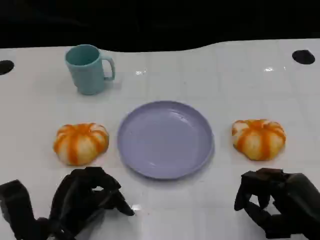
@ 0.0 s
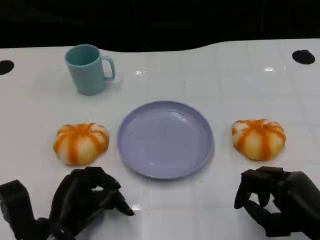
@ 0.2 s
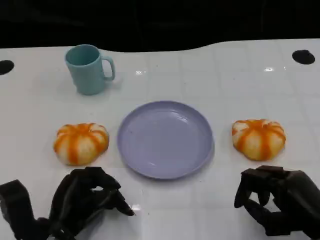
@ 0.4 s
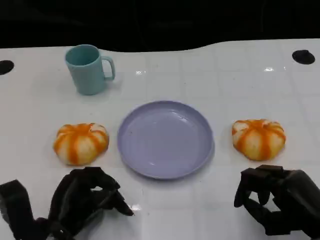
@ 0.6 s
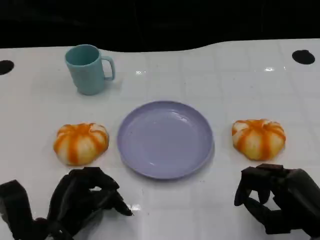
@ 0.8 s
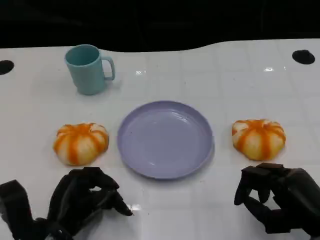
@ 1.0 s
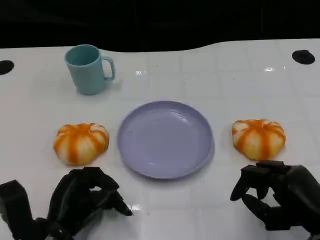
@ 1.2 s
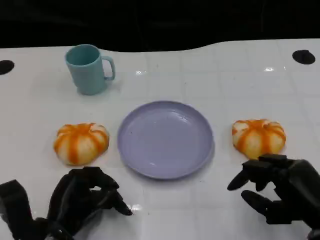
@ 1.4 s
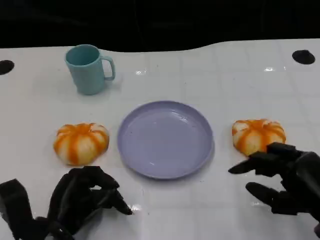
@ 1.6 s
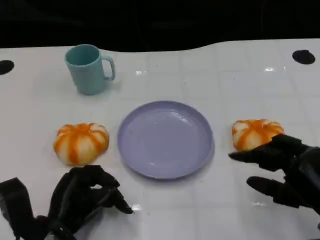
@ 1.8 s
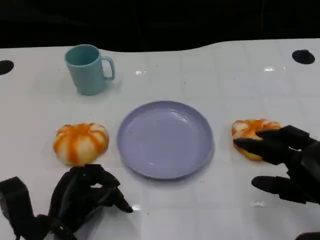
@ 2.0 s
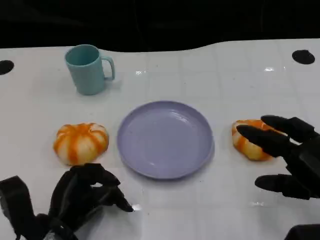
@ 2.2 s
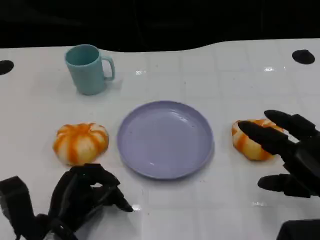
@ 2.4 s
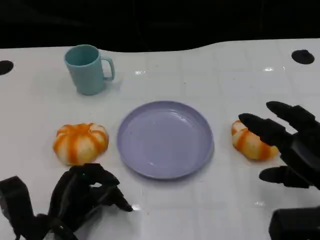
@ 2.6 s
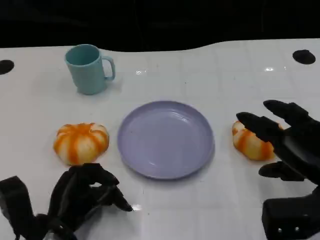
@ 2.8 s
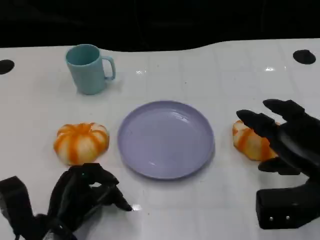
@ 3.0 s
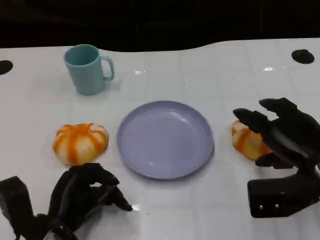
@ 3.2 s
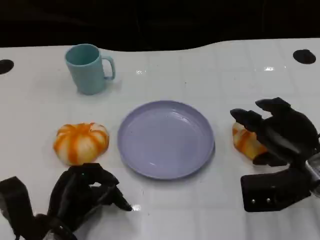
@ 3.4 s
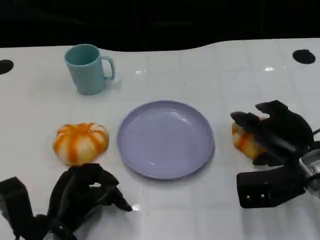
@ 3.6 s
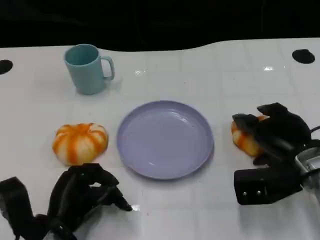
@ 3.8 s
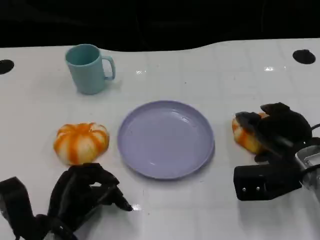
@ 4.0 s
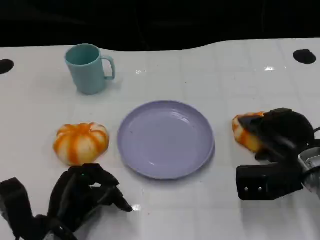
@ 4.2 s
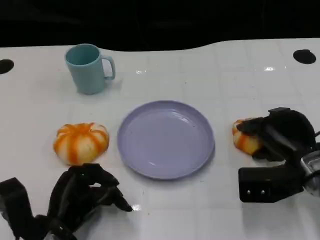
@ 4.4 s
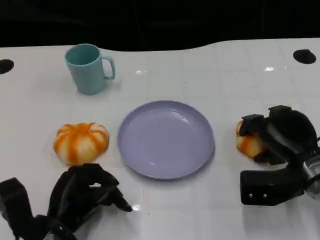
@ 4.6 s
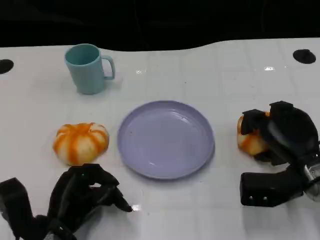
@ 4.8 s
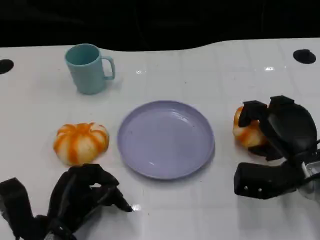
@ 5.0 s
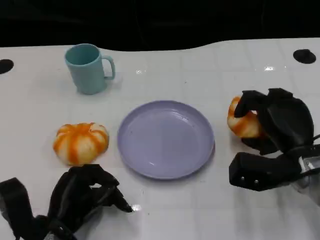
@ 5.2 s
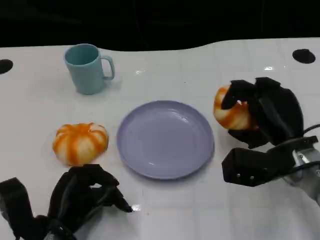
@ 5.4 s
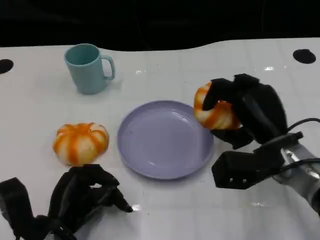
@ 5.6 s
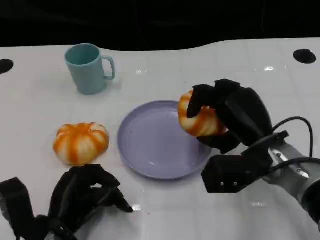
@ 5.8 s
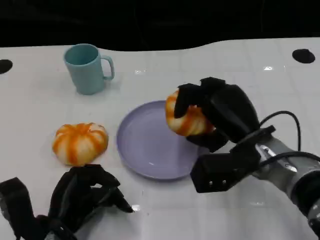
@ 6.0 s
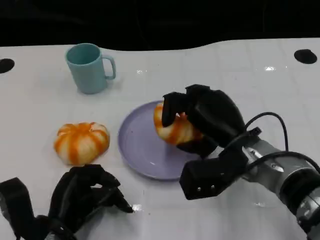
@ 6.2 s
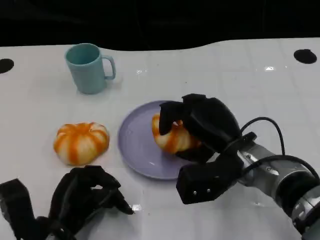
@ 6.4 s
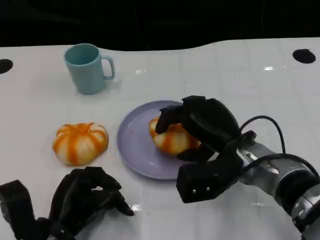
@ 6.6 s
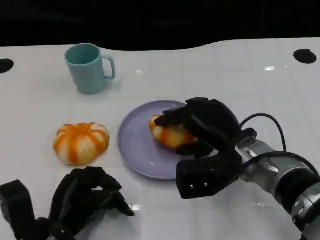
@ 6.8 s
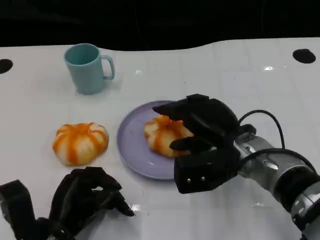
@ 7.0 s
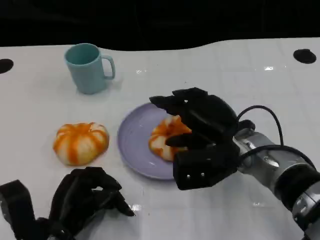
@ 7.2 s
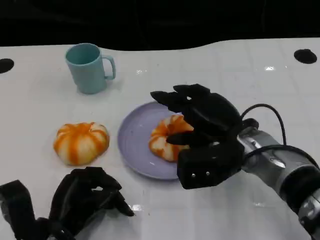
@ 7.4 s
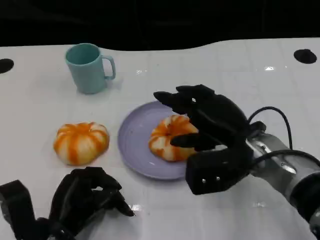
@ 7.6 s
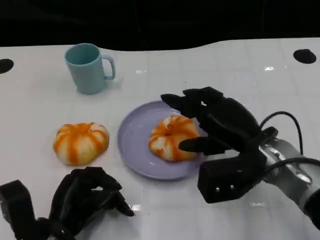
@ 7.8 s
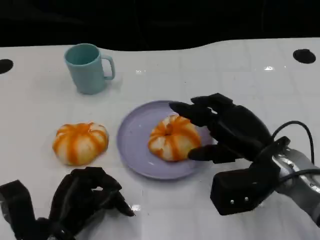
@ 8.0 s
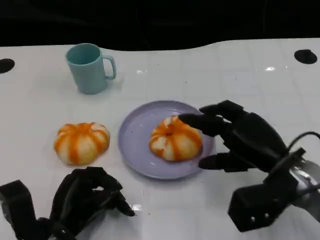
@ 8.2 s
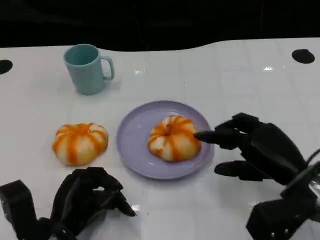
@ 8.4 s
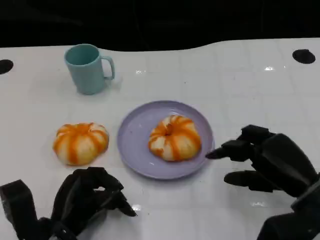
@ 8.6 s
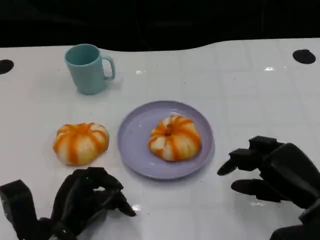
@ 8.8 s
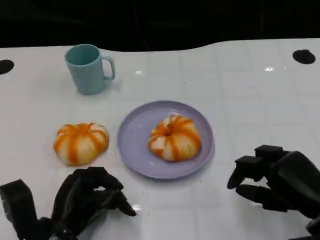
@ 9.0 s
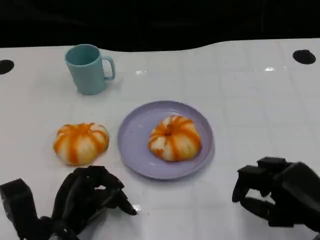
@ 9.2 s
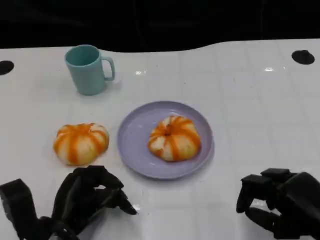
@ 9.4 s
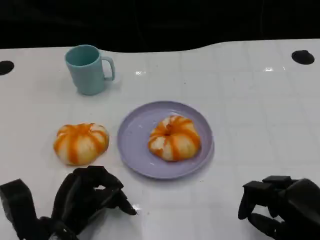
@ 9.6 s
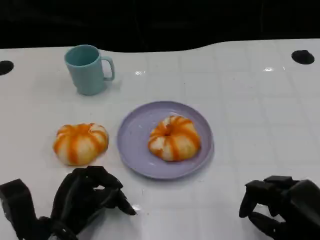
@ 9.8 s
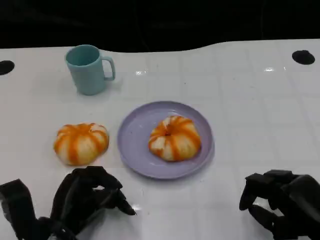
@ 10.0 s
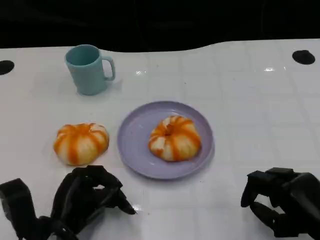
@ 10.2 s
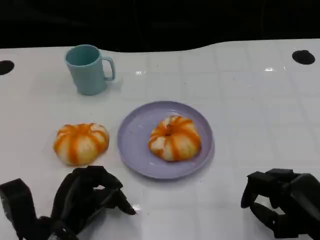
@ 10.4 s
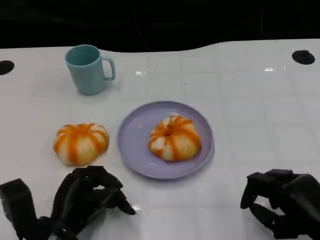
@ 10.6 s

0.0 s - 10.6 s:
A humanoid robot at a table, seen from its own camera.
Task of the whole recording: Grasp the bread from the table and place it into the plate.
0.0 s - 1.6 s: There are only small adjustments of the hands.
1.6 s - 3.0 s: The right hand goes approximately 5 cm forward.
3.0 s - 4.6 s: The right hand moves approximately 5 cm.
4.6 s - 6.0 s: The right hand travels to the left by about 10 cm.
7.6 s - 9.0 s: The right hand moves to the right and backward, approximately 15 cm.
9.0 s - 10.6 s: The hands stay close to where they were, moving slightly.

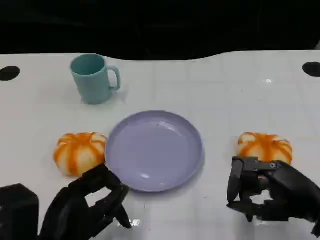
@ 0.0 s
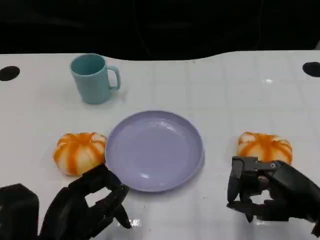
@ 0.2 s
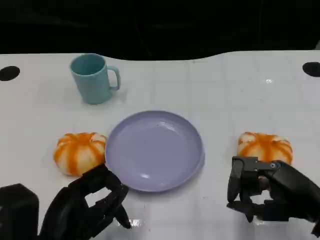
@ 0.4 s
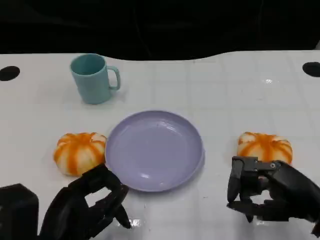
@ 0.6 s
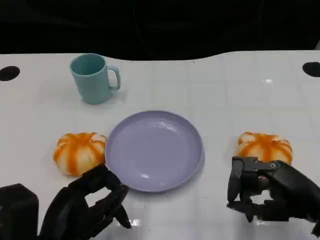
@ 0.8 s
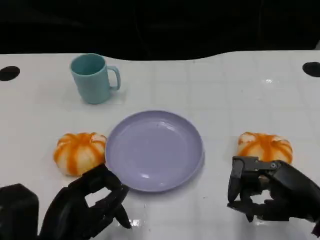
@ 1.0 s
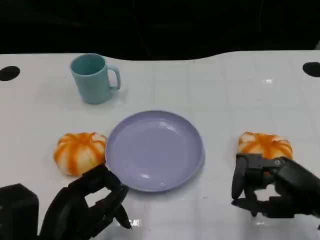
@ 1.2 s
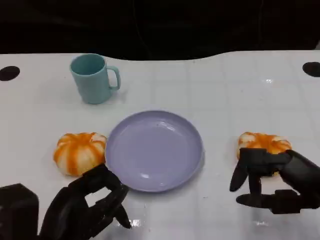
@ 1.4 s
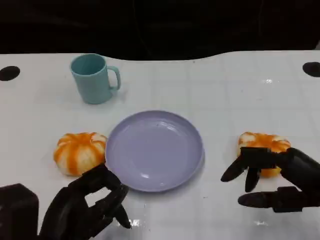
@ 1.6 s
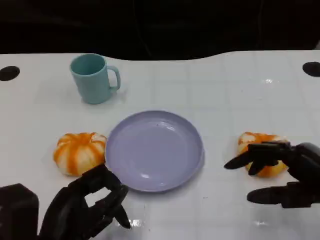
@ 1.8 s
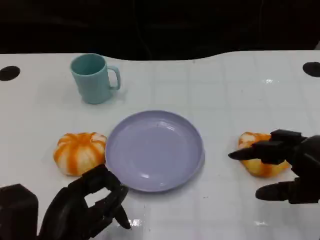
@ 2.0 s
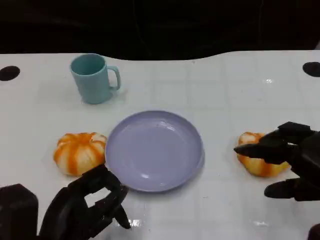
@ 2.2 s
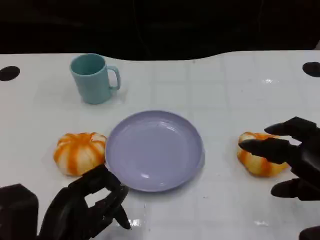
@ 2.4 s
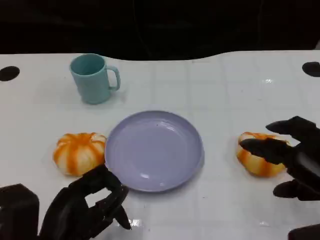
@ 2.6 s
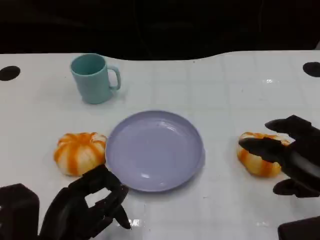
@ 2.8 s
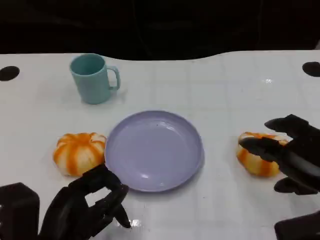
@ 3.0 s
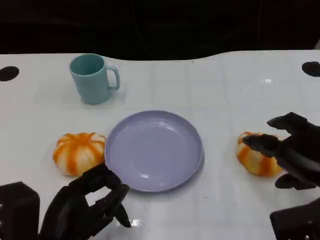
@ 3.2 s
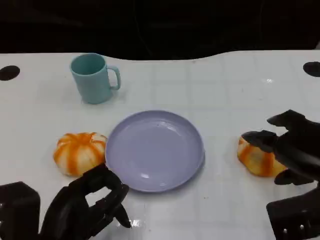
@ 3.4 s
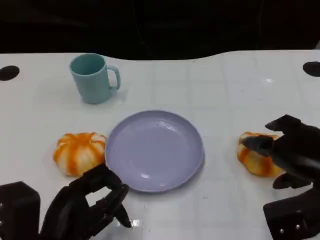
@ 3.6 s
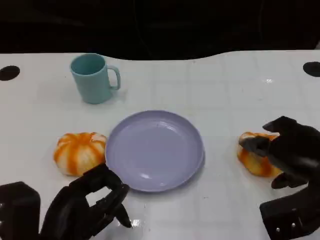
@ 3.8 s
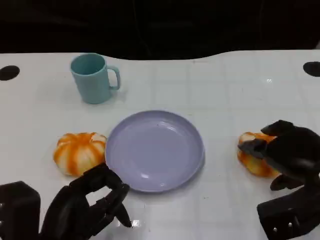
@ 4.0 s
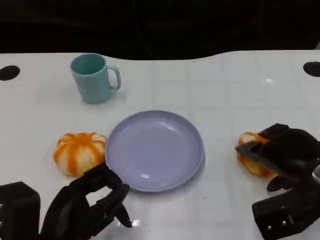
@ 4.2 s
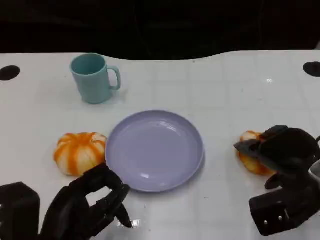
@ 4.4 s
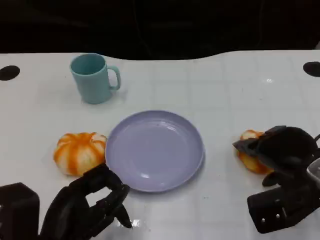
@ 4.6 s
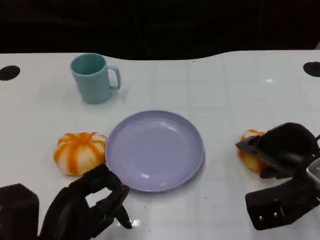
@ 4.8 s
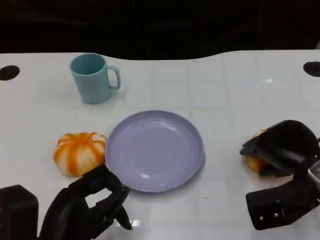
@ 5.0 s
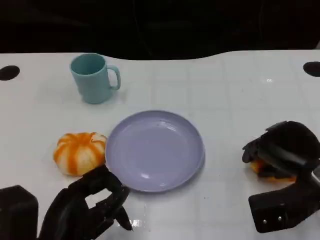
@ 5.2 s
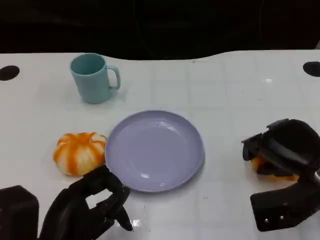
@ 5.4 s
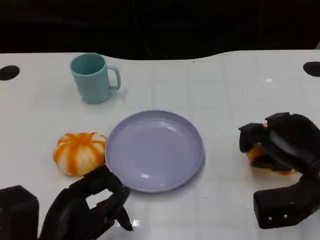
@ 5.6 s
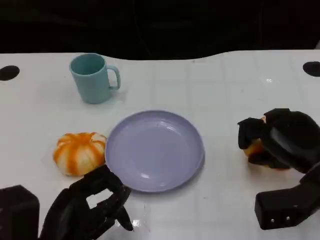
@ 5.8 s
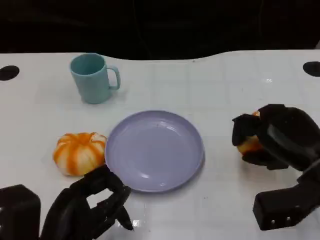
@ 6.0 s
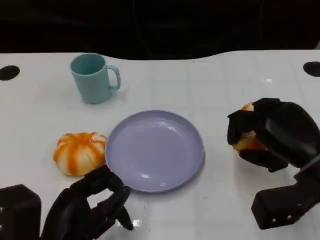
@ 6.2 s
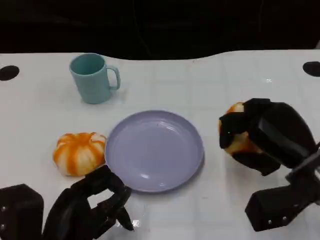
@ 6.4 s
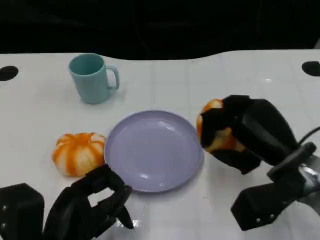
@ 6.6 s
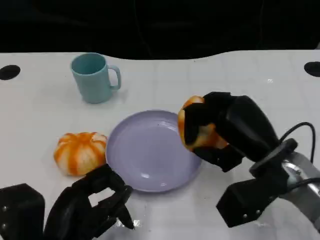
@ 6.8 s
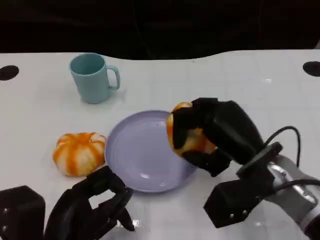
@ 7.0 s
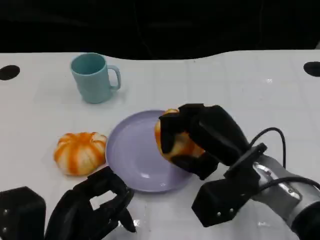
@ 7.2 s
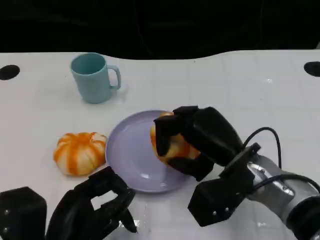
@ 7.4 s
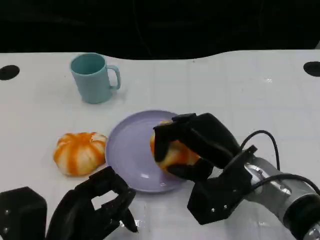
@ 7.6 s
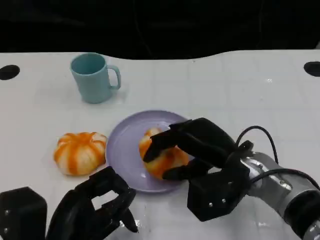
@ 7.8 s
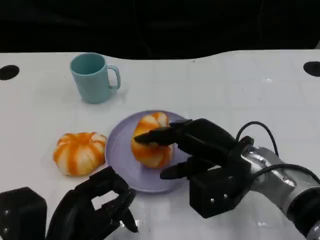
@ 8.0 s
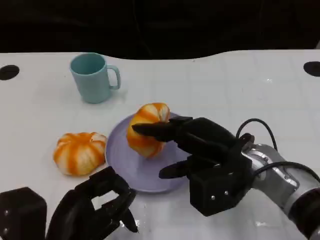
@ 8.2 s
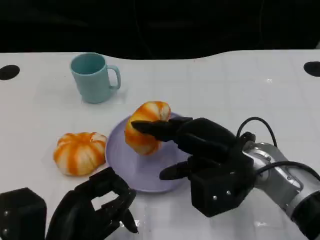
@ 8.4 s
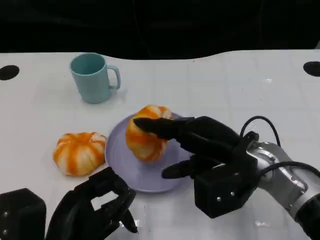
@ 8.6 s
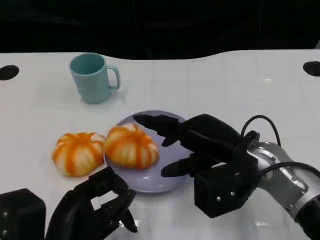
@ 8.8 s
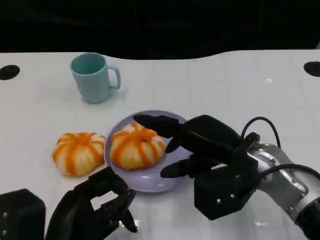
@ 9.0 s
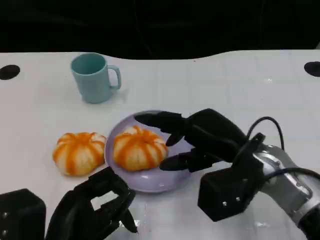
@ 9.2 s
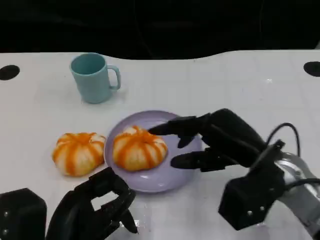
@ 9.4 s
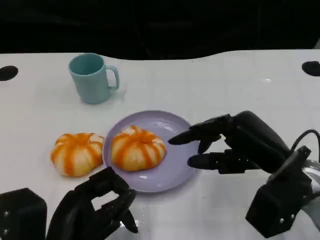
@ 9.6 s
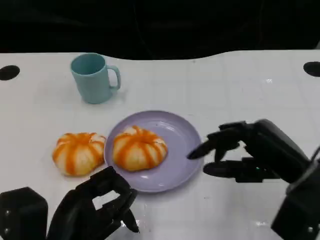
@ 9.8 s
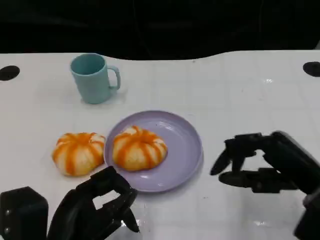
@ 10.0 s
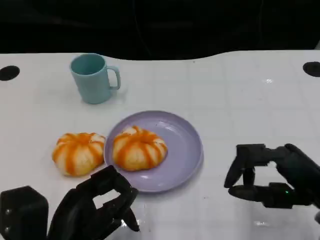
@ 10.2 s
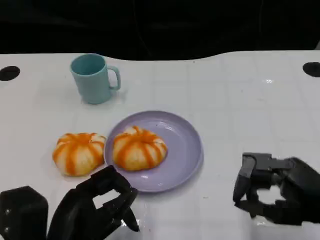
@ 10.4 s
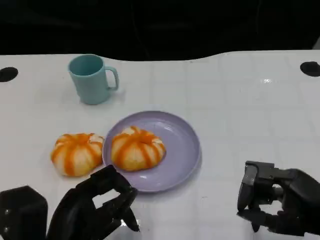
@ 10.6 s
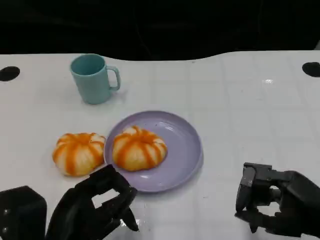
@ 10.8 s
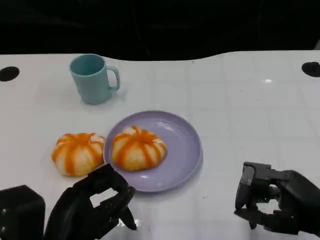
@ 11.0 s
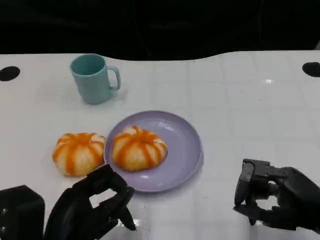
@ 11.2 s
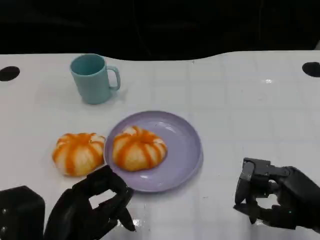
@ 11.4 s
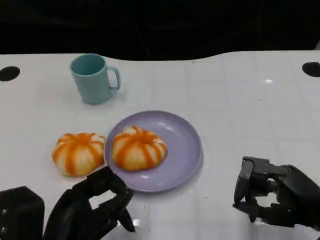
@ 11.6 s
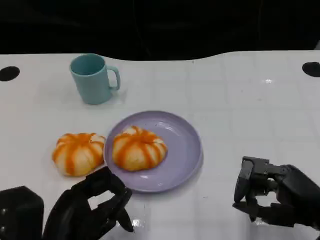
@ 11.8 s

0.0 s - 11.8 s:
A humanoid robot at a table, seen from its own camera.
Task of the whole recording: Grasp the bread from the table and place it into the plate.
0.0 s - 1.4 s: There are only small adjustments of the hands.
3.0 s - 4.4 s: The right hand moves forward, roughly 5 cm.
6.0 s - 7.4 s: The right hand shifts approximately 10 cm to the left.
8.8 s - 10.4 s: The right hand moves to the right and backward, some 15 cm.
10.4 s - 11.8 s: There are only small adjustments of the hands.
